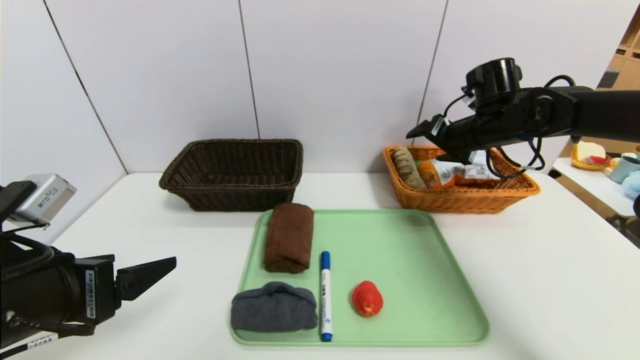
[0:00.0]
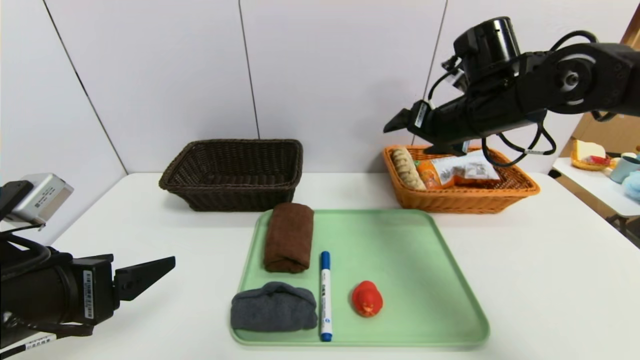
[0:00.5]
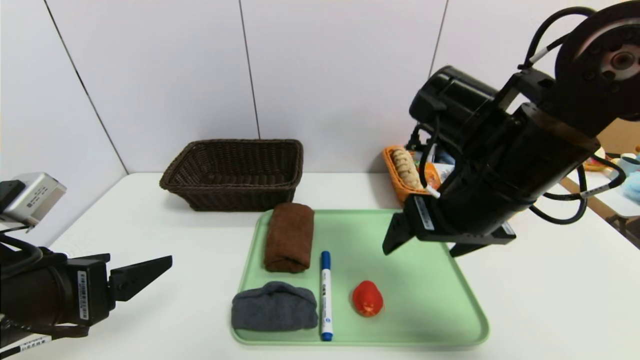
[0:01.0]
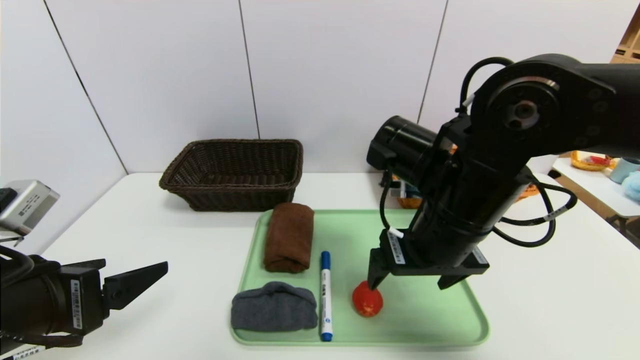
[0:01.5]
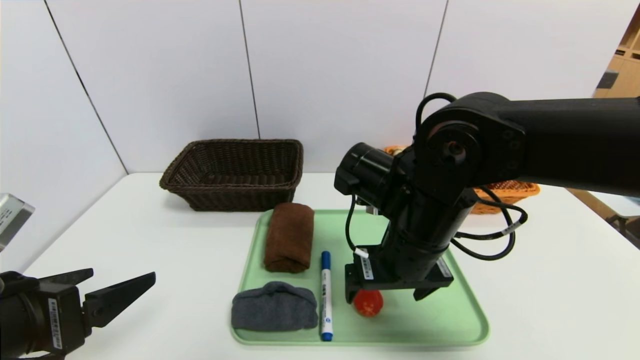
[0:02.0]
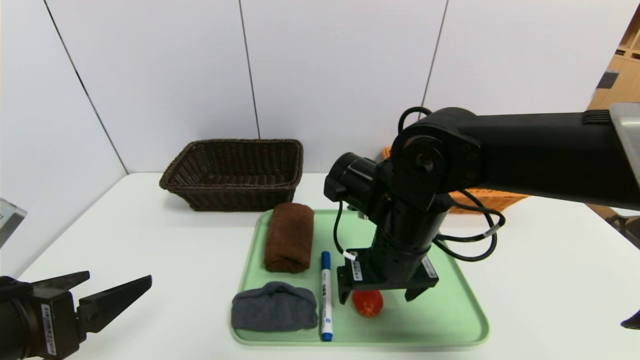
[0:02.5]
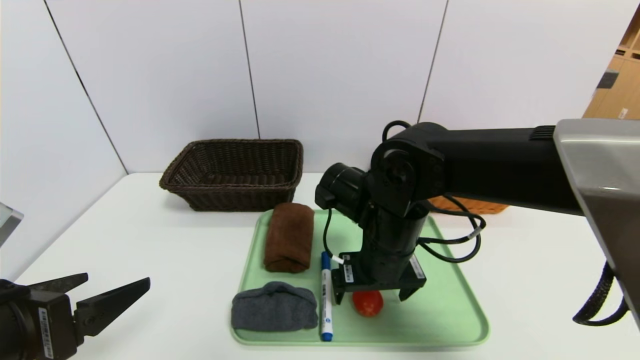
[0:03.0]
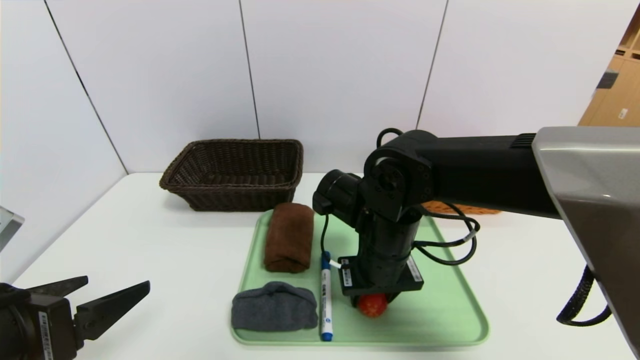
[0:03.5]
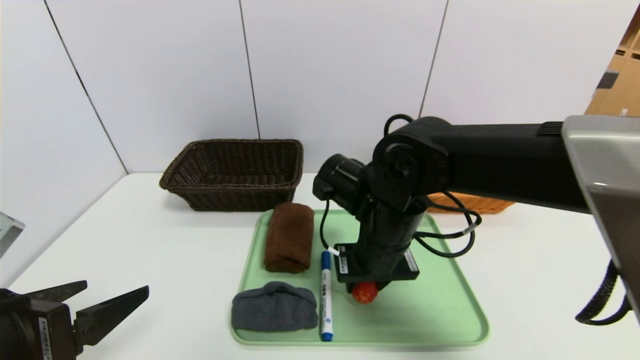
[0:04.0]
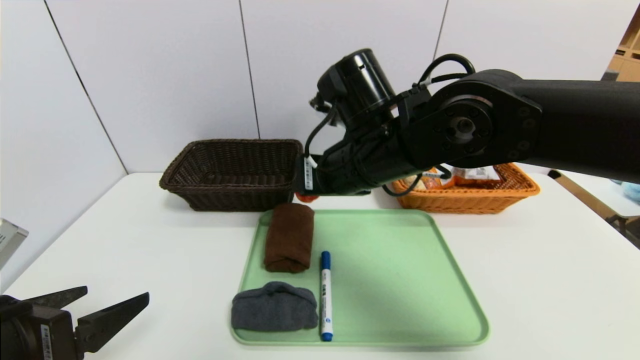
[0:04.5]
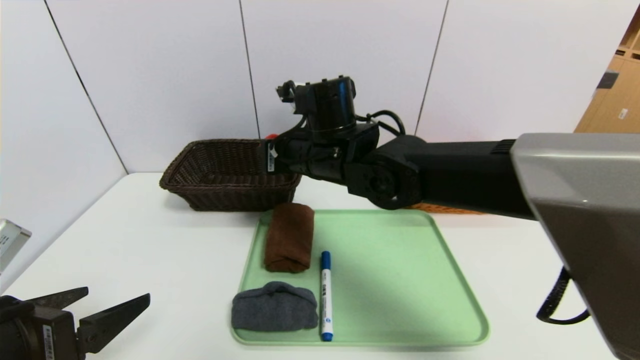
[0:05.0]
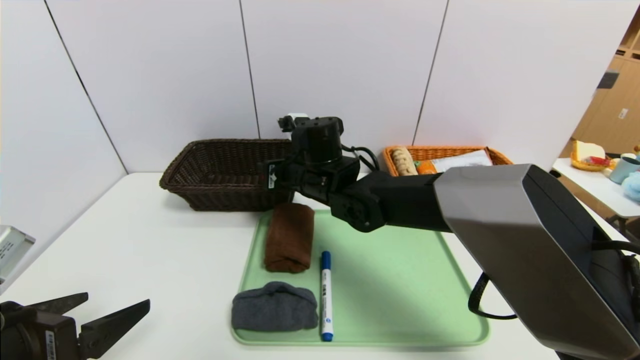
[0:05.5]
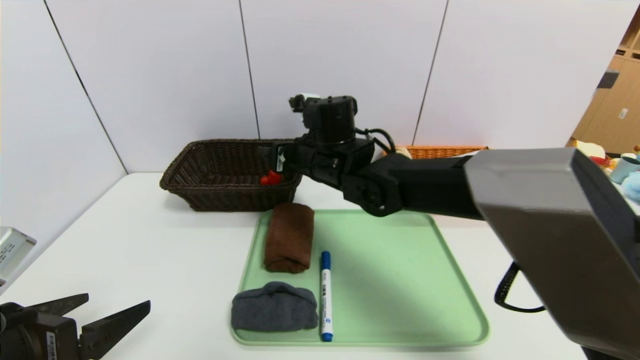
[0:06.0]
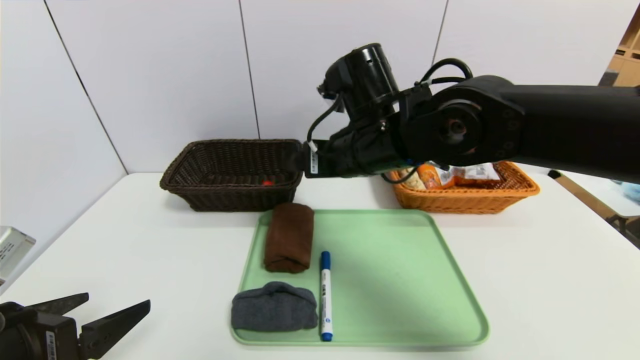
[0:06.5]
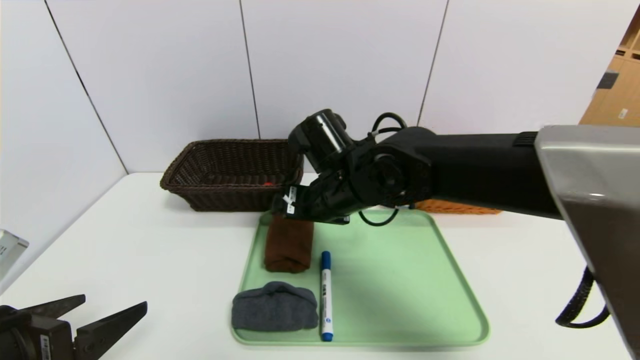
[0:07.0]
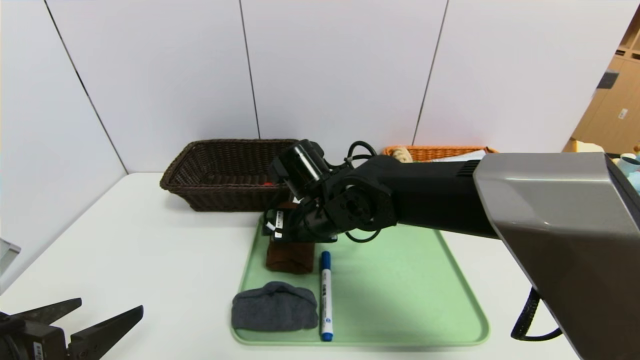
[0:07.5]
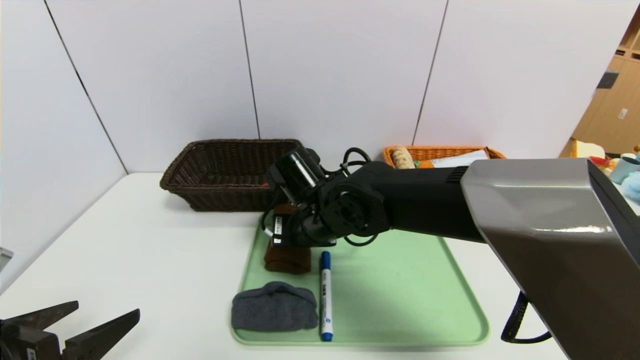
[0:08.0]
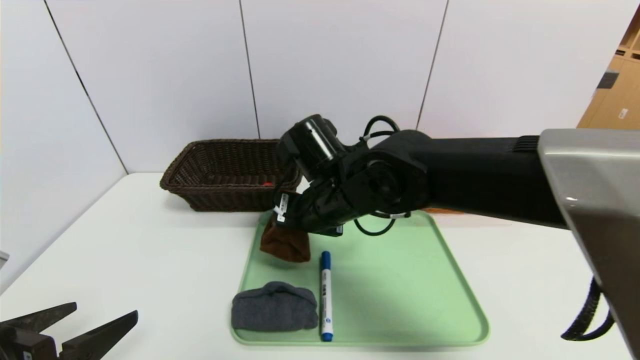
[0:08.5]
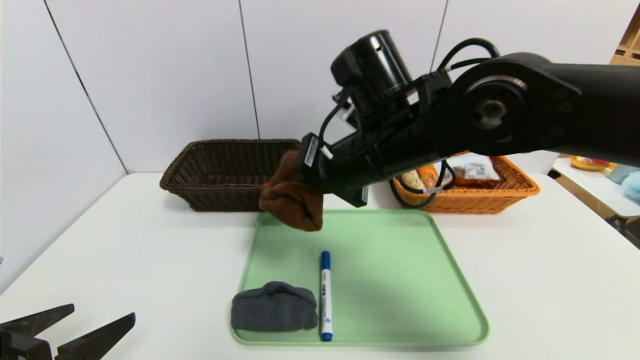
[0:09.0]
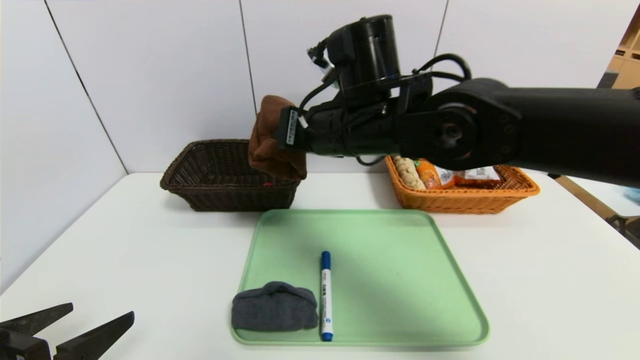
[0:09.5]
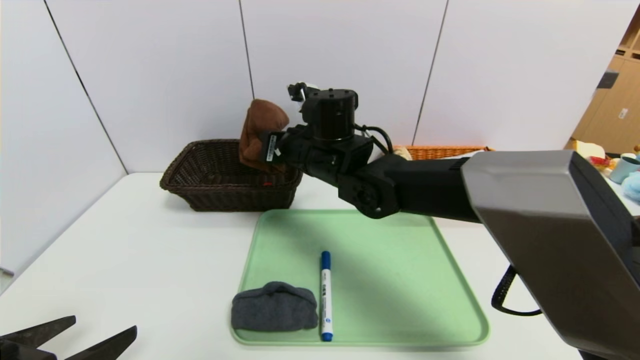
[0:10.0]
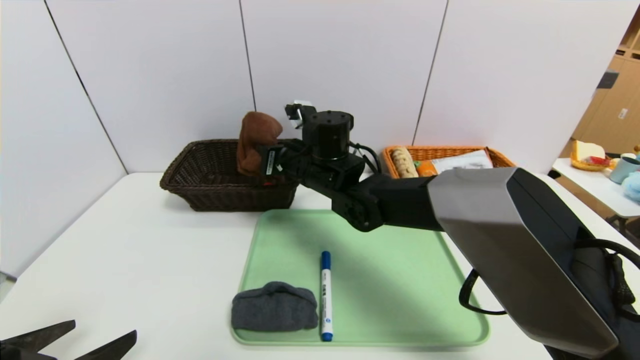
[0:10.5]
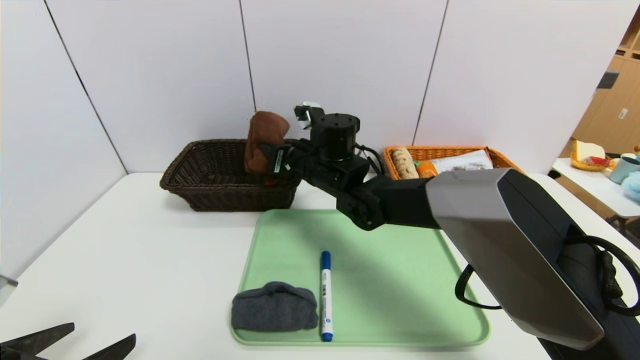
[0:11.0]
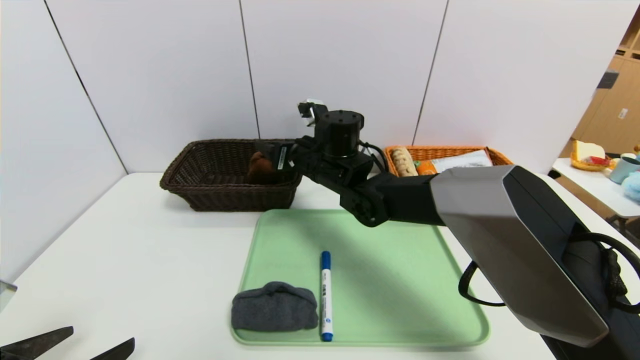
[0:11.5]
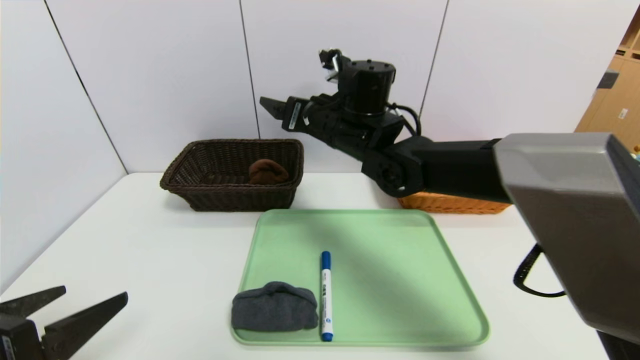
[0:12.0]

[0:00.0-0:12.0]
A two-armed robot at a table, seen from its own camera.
Task of the whole recording: place the food in the right basket with the right gripper, and place the non food items in the left basket with the left gripper.
0:00.0 to 0:02.0: The right gripper heads backward and to the left, covering about 25 cm.
0:02.0 to 0:04.0: The right gripper closes its fingers.
0:04.0 to 0:06.0: The right gripper heads forward and to the left, covering some 10 cm, and opens its fingers.
0:06.0 to 0:08.0: The right gripper is displaced downward and backward by some 10 cm, and closes up.
0:08.0 to 0:10.0: The right gripper heads forward and upward, covering approximately 10 cm.
0:10.0 to 0:12.0: The right gripper moves roughly 5 cm, and opens its fingers.

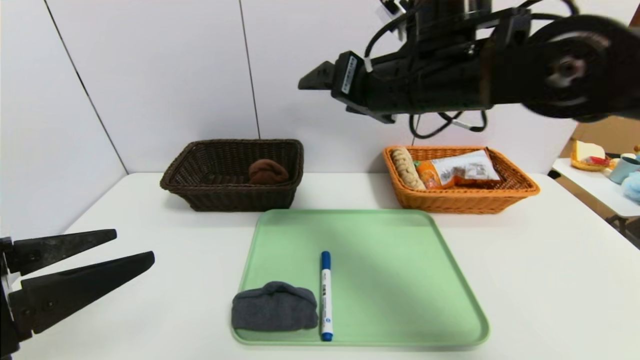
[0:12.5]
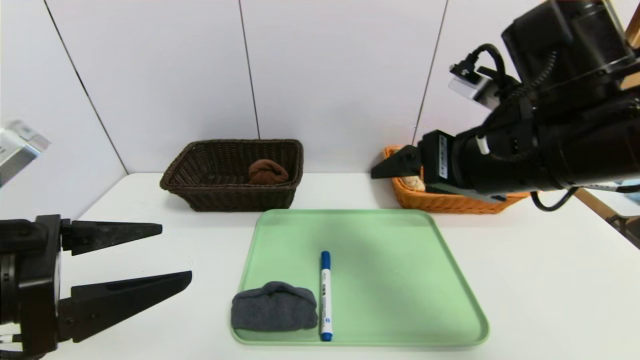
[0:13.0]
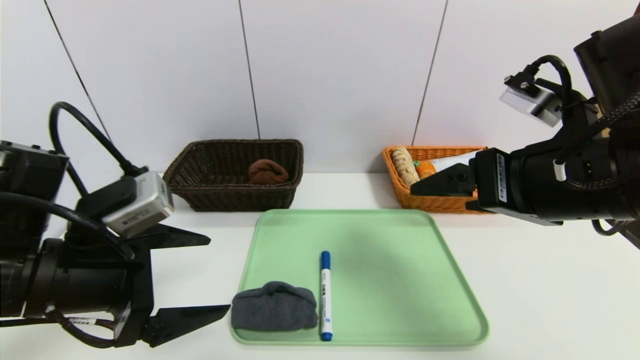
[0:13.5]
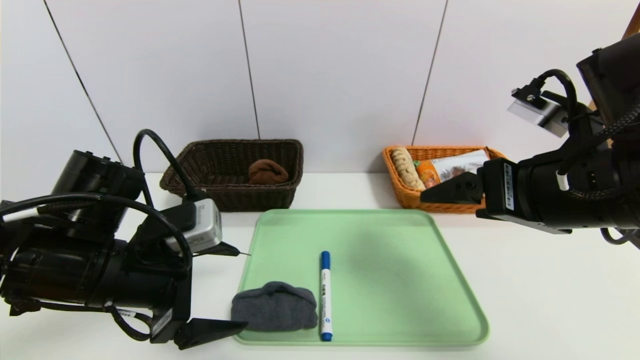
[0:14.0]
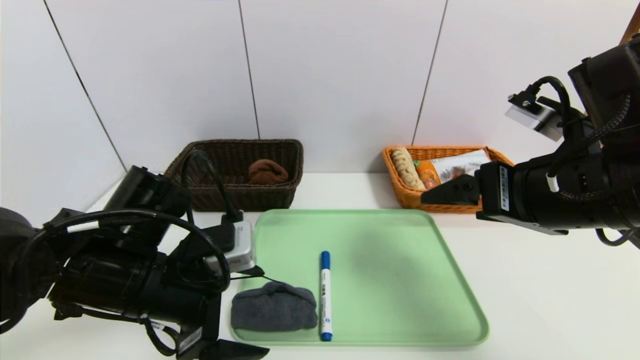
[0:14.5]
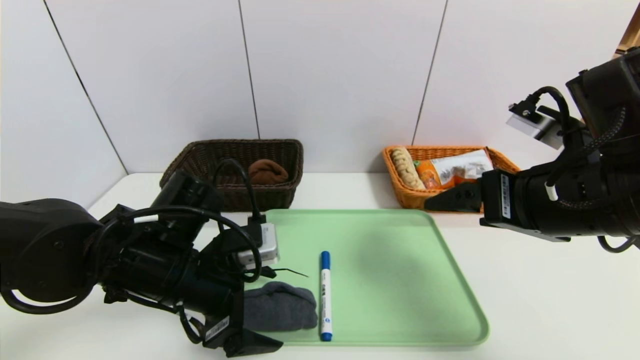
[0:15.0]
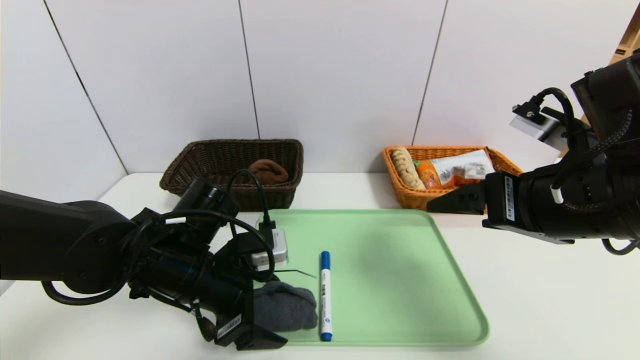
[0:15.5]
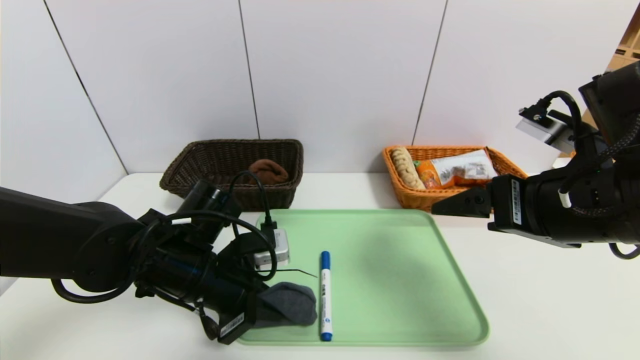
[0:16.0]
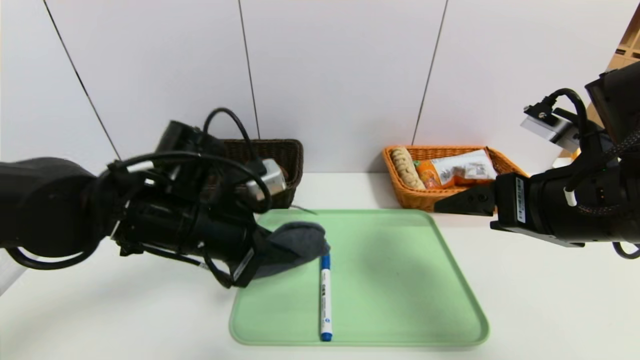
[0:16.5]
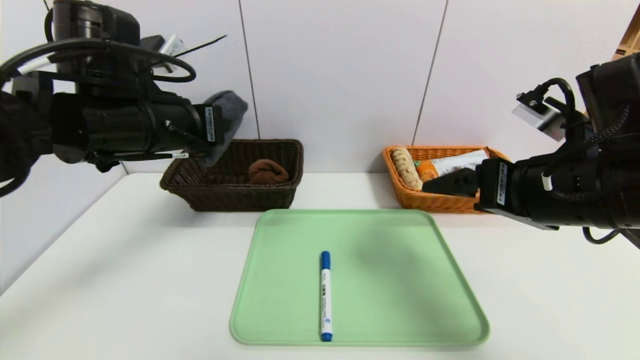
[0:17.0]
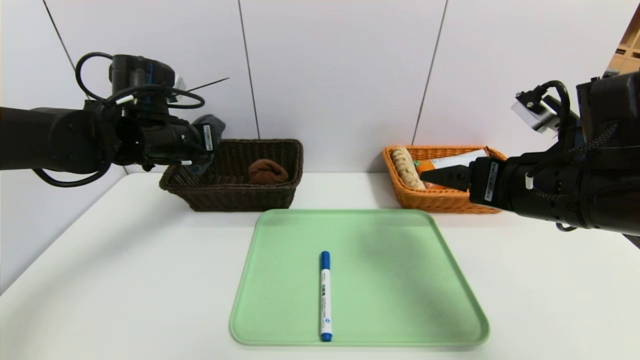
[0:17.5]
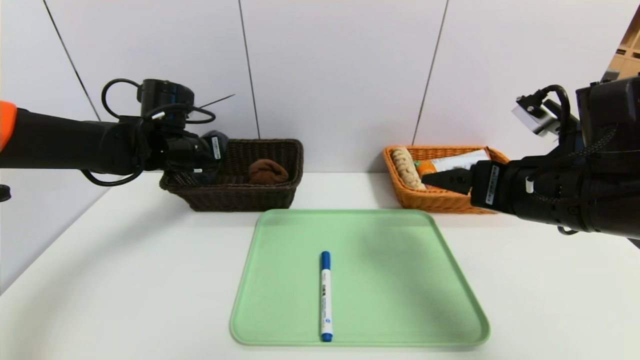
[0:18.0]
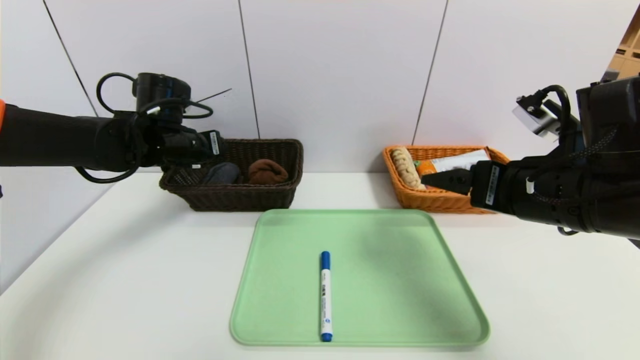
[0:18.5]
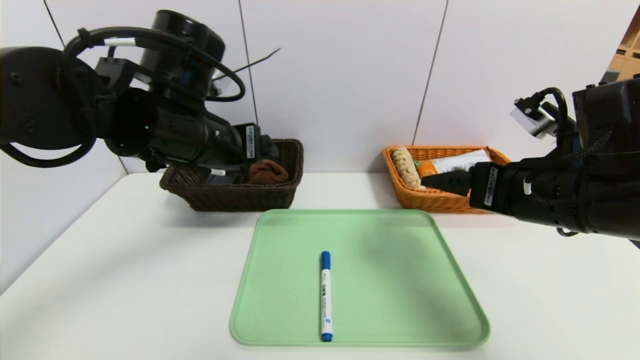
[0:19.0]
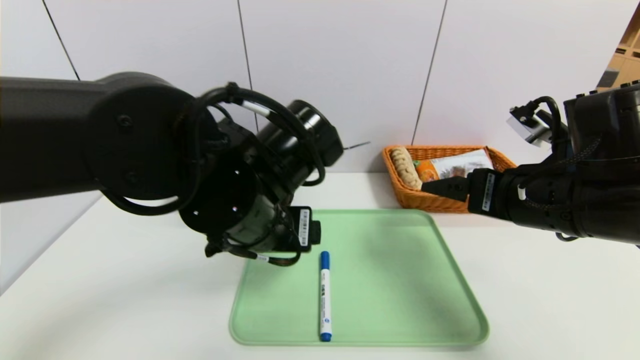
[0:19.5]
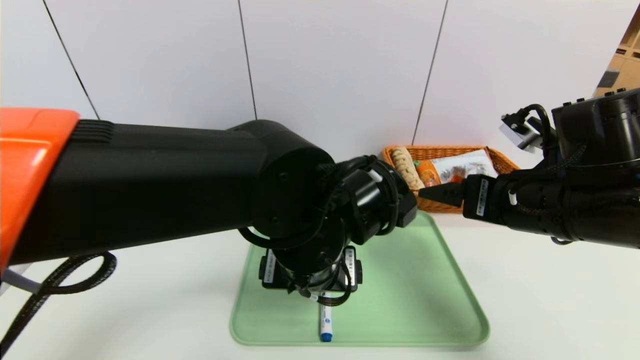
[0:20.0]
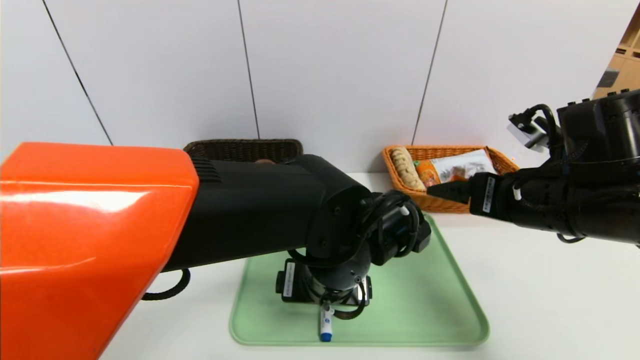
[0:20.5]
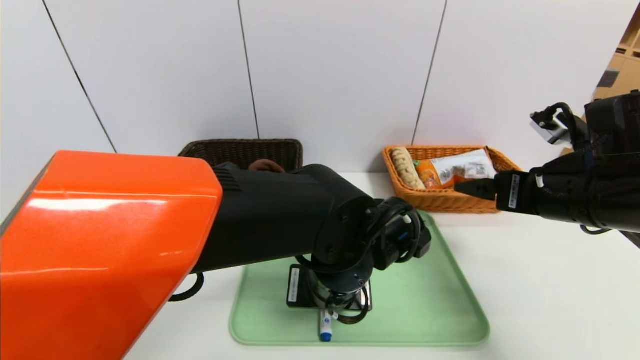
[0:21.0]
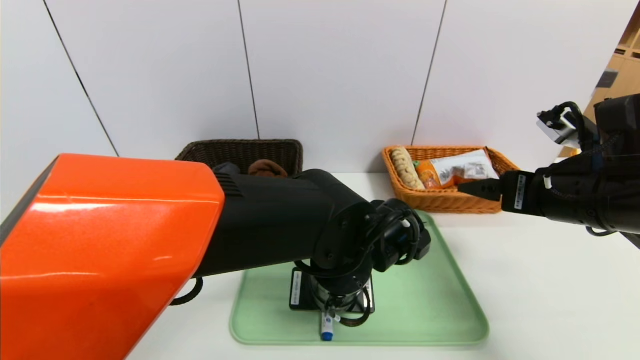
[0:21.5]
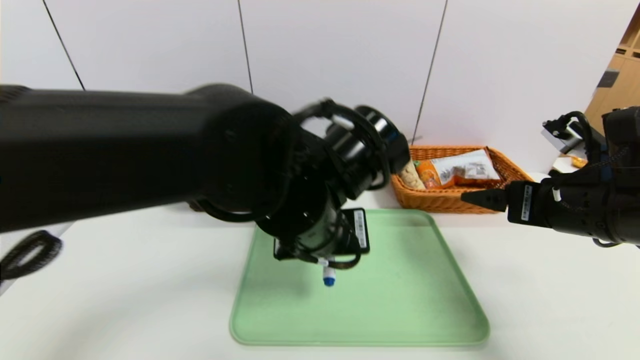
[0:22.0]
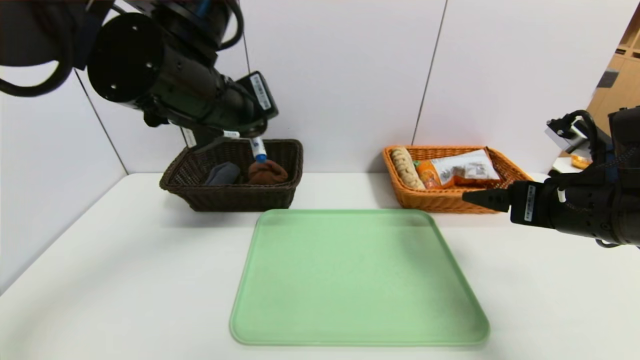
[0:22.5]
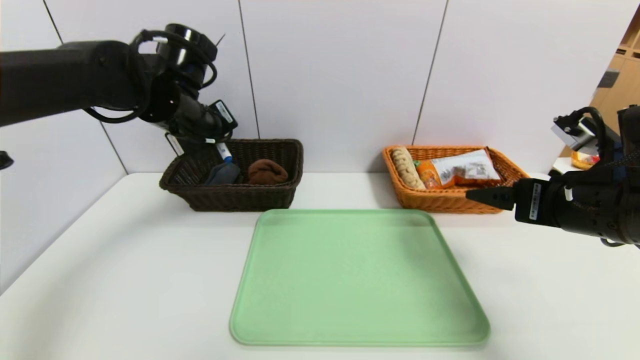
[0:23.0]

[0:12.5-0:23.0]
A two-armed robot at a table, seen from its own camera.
Task of the whole recording: place the food in the right basket with the right gripper, and place the non food items in the left basket with the left gripper.
Step, 0:12.5 to 0:18.5: Grasp the grey towel and put it in the left basket.
0:12.5 to 0:14.5: The right gripper heads to the right, backward and downward, covering approximately 15 cm. Meanwhile the left gripper goes approximately 15 cm forward, downward and to the right.
0:14.5 to 0:16.5: The left gripper moves approximately 5 cm, and closes up.
0:16.5 to 0:19.0: The left gripper heads upward, covering approximately 5 cm, goes forward and returns, approximately 15 cm each way, and opens.
0:19.0 to 0:21.0: The left gripper goes some 20 cm to the right and downward, and closes, while the right gripper shifts by about 5 cm.
0:21.0 to 0:23.0: The left gripper shifts about 30 cm to the left, forward and upward, and closes up.
